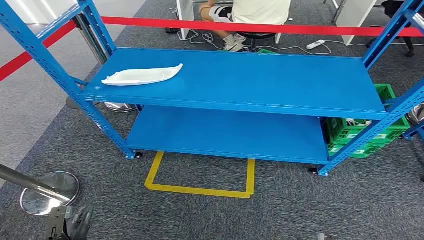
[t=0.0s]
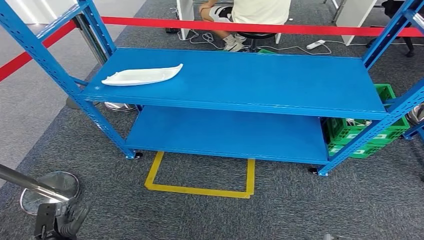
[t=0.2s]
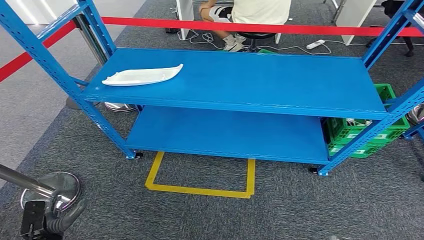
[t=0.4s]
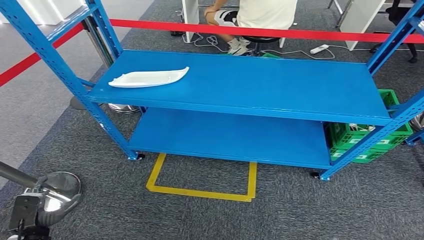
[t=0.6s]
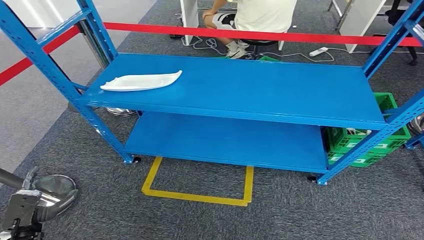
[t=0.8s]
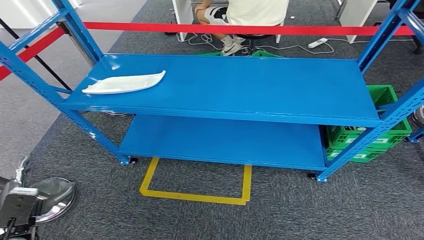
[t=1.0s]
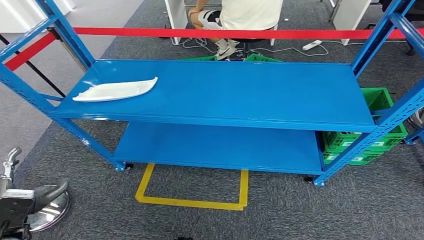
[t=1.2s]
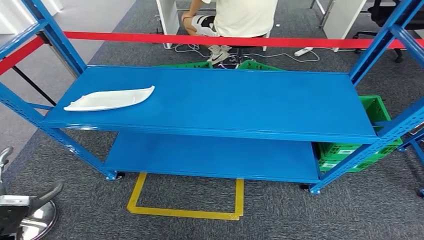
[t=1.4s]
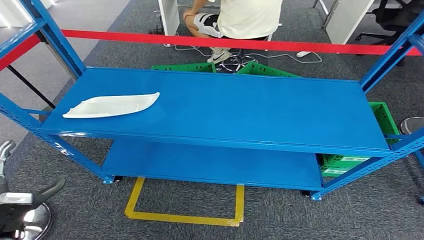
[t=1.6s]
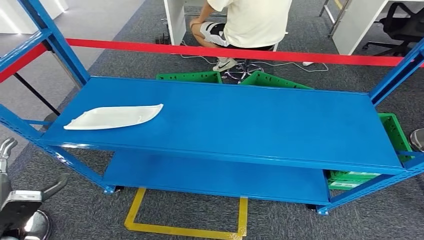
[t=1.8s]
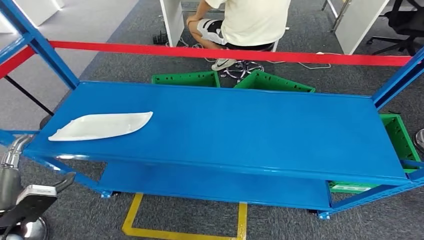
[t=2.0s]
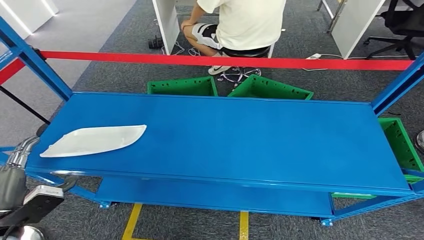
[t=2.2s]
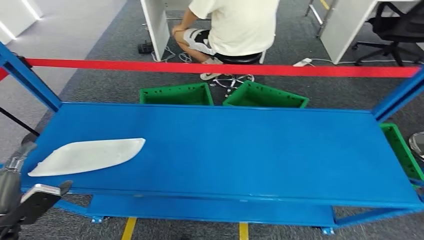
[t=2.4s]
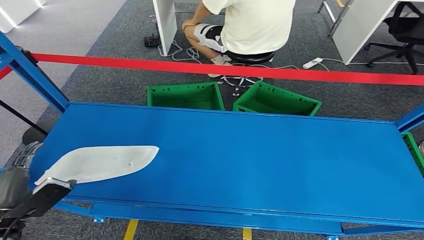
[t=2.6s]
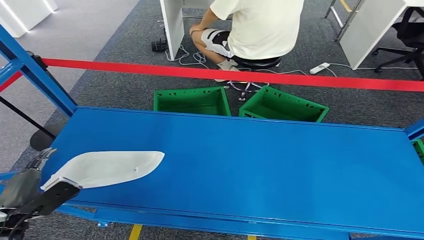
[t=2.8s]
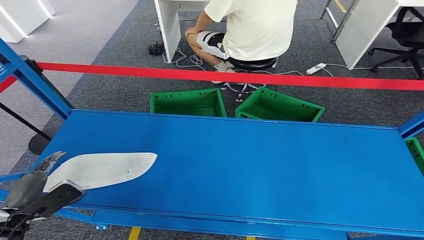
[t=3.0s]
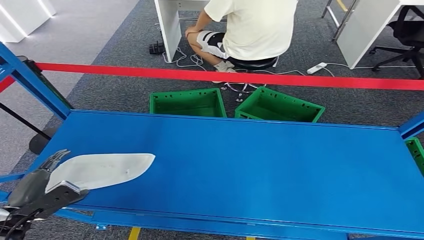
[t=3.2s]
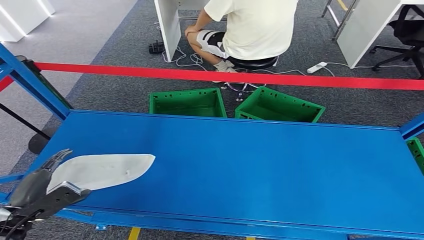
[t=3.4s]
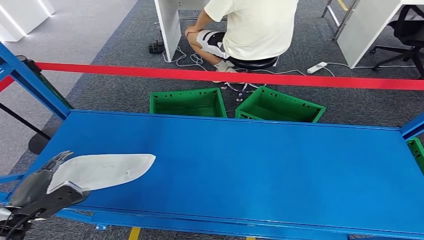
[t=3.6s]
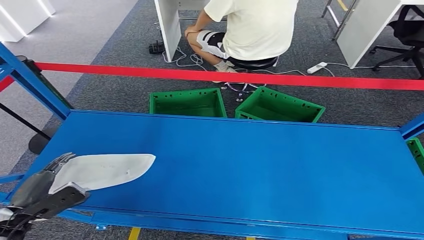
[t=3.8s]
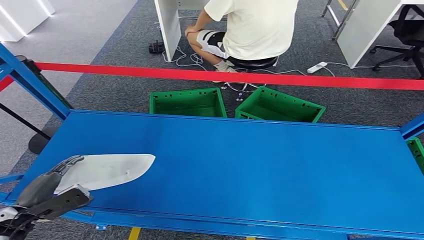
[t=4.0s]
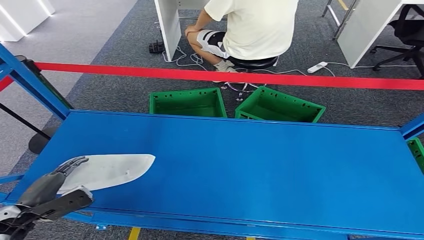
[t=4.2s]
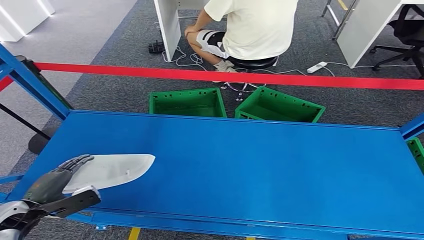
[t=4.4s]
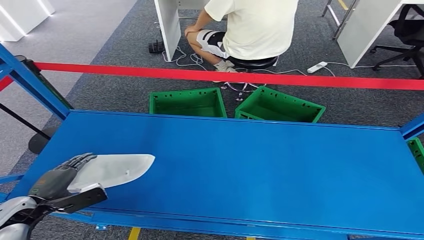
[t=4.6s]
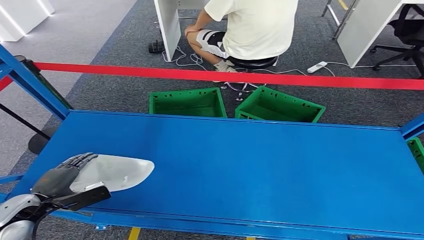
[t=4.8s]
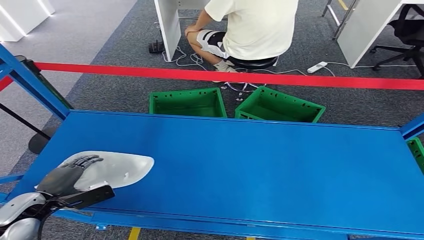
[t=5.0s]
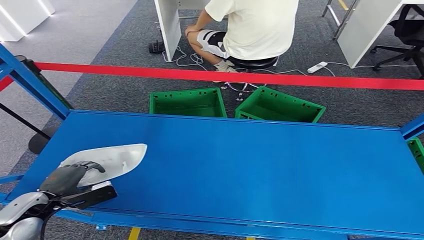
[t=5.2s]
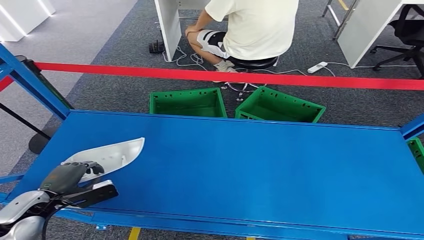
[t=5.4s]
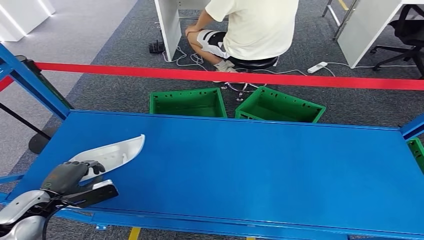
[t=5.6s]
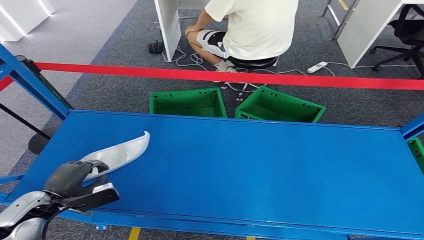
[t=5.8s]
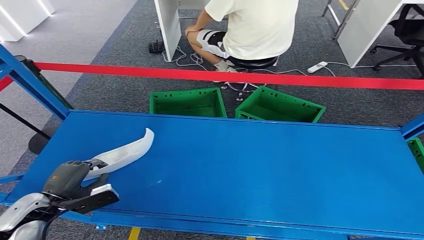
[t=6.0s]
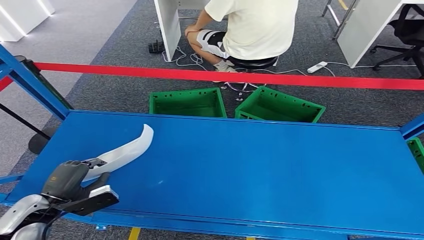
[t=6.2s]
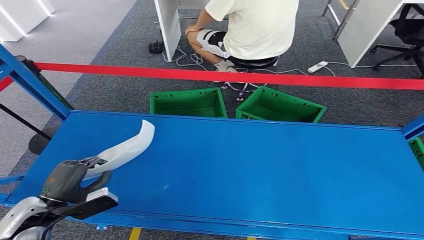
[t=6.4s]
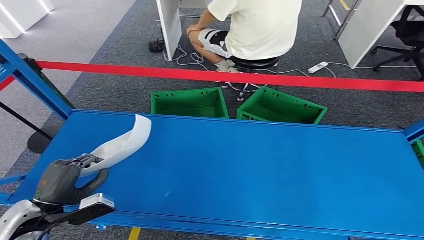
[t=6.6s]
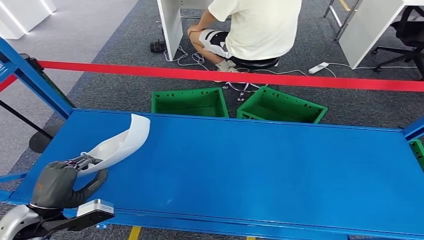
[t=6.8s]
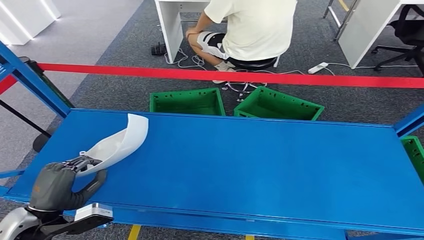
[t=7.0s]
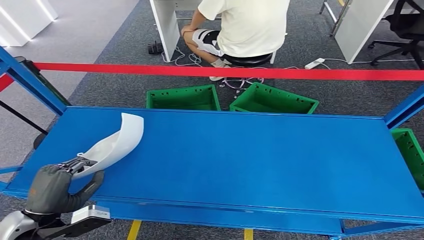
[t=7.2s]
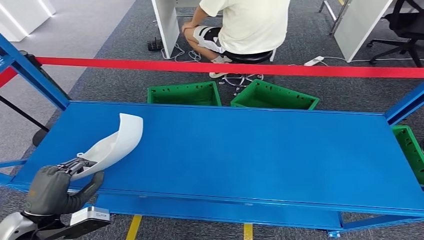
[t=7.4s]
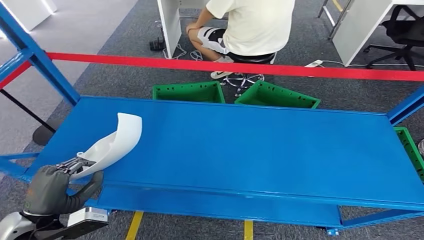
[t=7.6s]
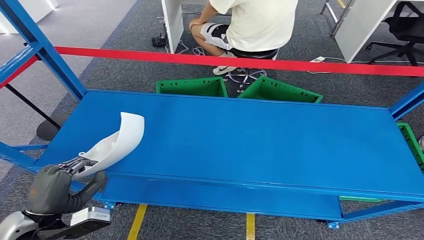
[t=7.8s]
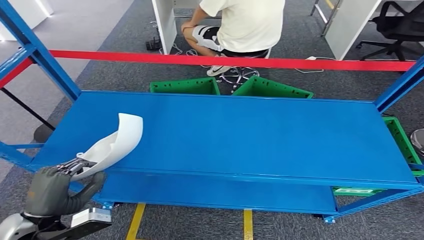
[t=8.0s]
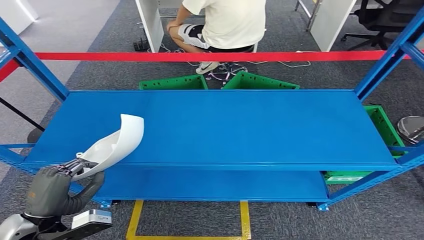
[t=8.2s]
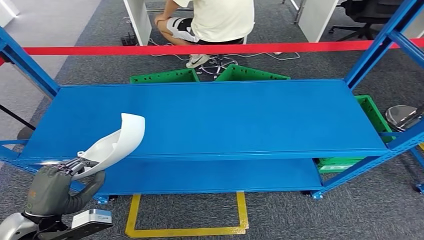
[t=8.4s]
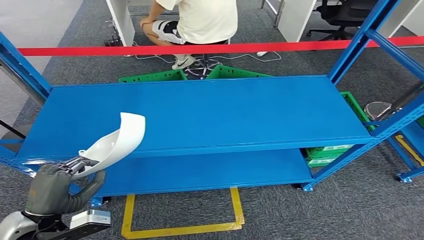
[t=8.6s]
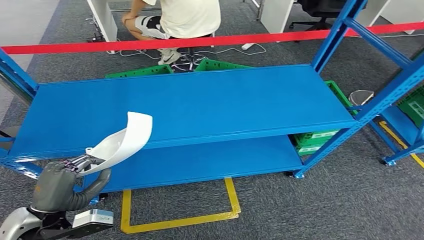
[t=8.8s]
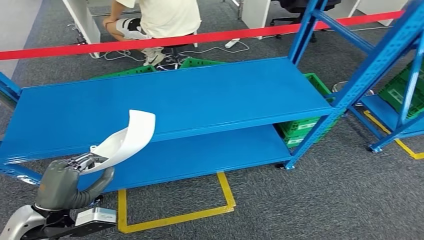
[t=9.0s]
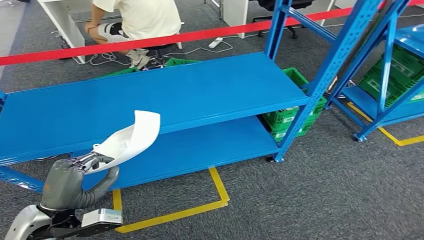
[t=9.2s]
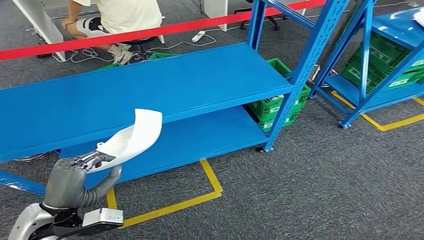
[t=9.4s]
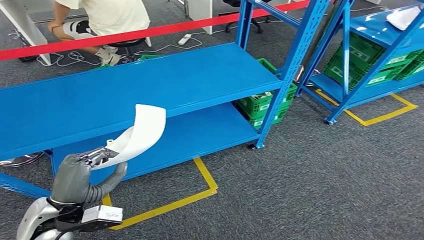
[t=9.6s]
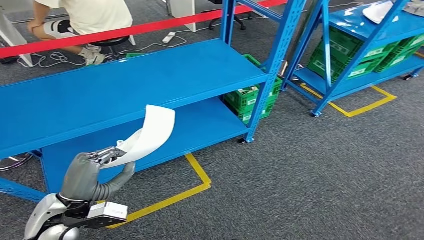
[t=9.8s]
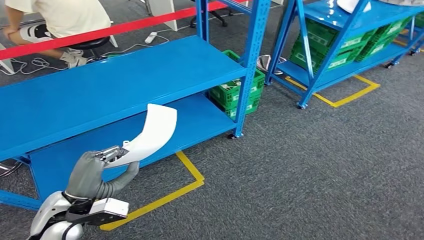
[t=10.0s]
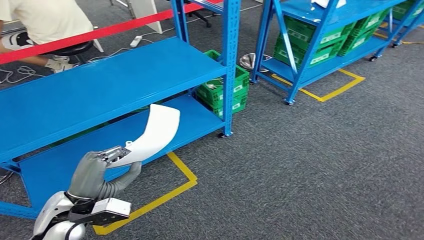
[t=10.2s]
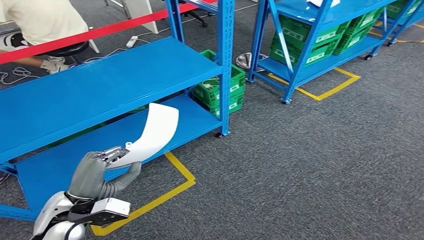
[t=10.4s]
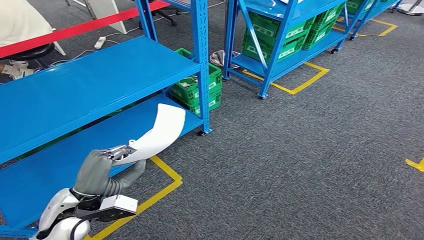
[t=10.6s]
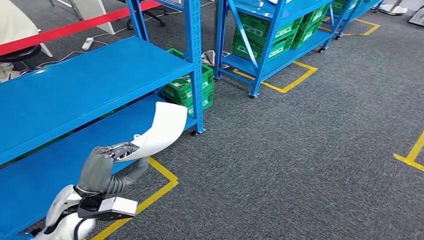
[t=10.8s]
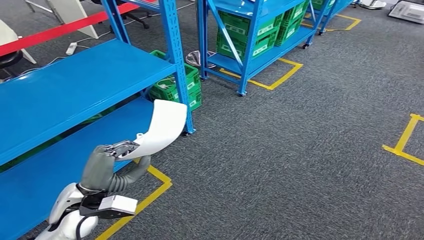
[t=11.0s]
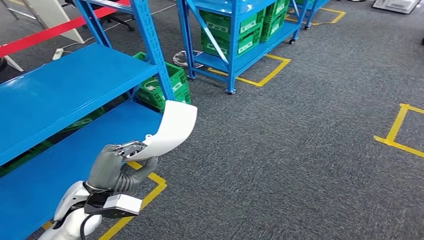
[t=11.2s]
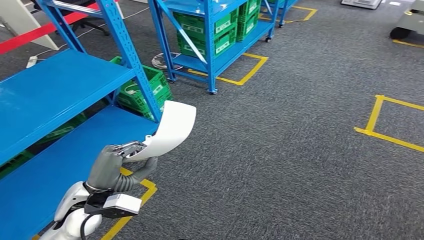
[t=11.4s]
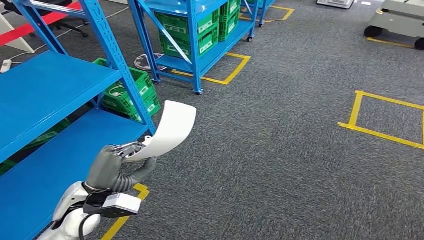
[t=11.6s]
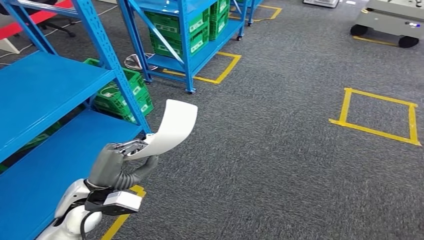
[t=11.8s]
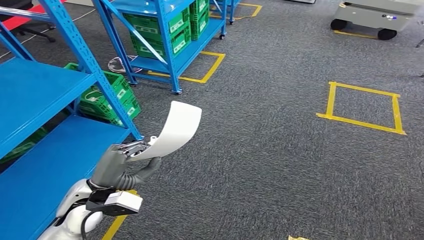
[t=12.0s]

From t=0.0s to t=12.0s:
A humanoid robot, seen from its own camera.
Step, from t=0.0s to t=7.4s: Pick up the small component from the shelf.
From t=3.0s to t=4.4s: There are only small adjustments of the hands.
From t=4.4s to t=6.0s: There are only small adjustments of the hands.

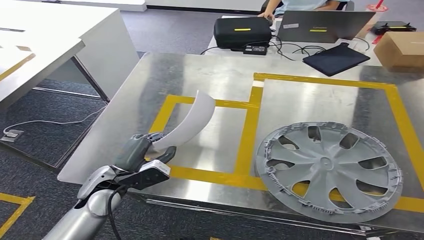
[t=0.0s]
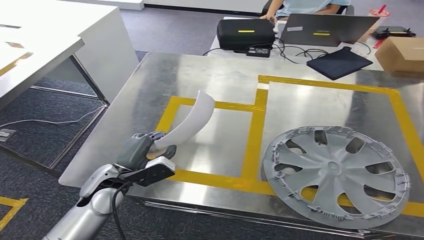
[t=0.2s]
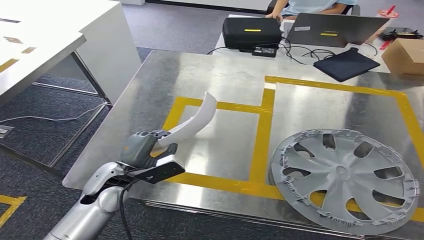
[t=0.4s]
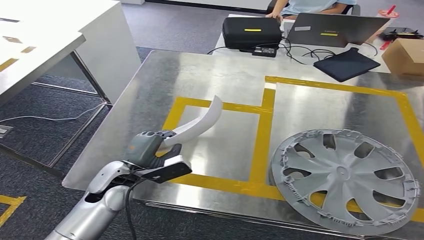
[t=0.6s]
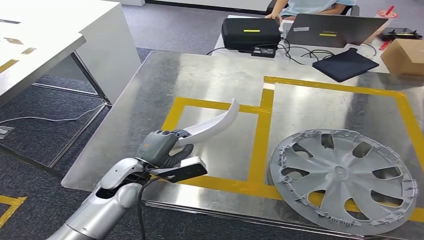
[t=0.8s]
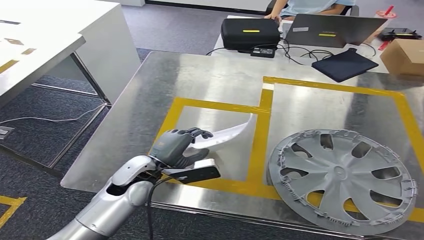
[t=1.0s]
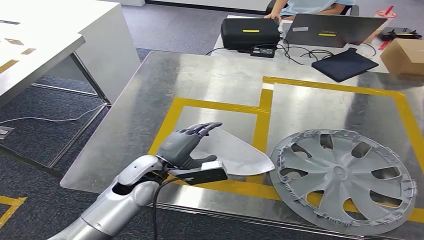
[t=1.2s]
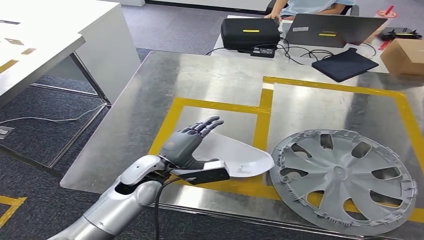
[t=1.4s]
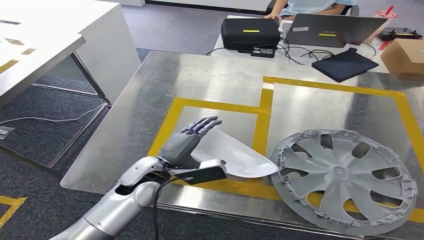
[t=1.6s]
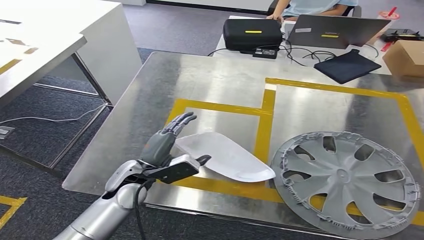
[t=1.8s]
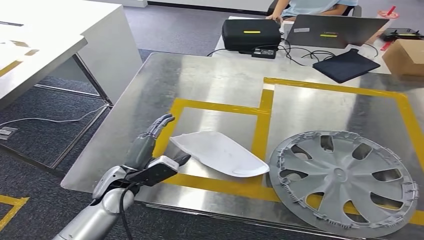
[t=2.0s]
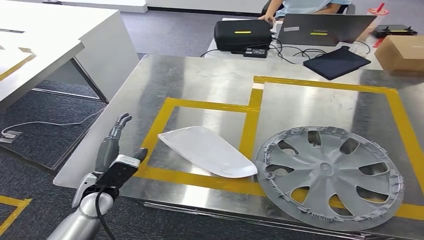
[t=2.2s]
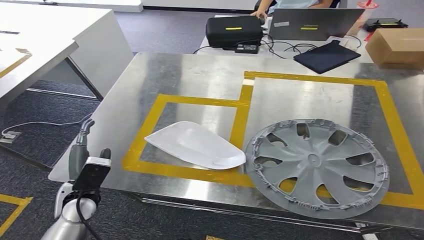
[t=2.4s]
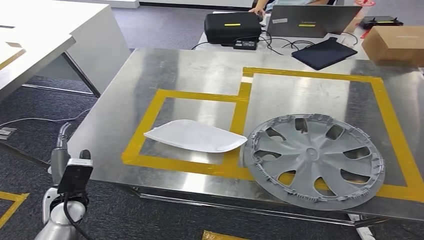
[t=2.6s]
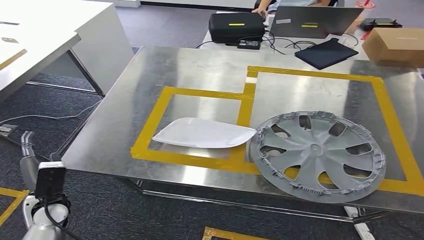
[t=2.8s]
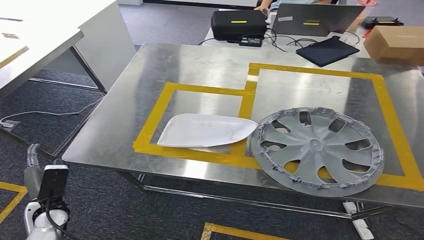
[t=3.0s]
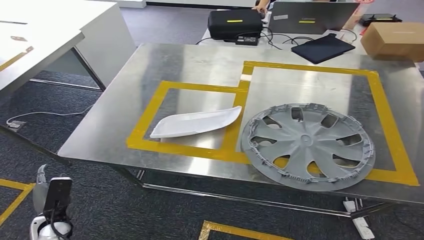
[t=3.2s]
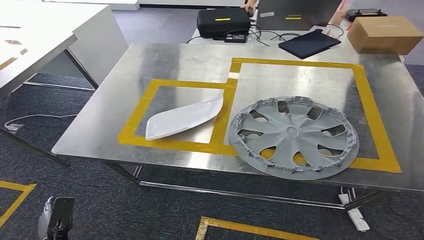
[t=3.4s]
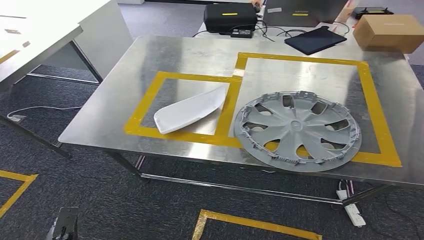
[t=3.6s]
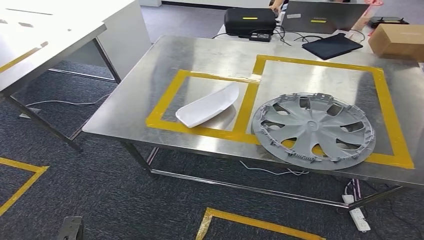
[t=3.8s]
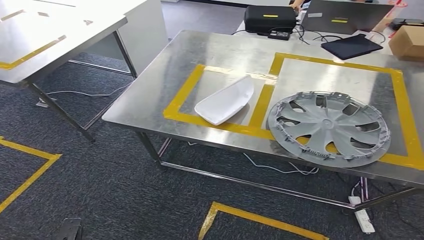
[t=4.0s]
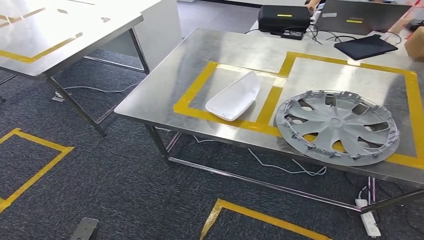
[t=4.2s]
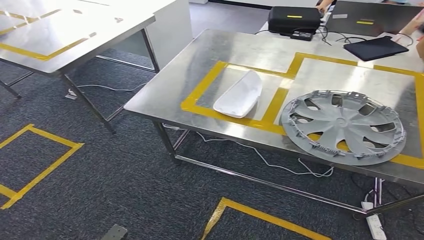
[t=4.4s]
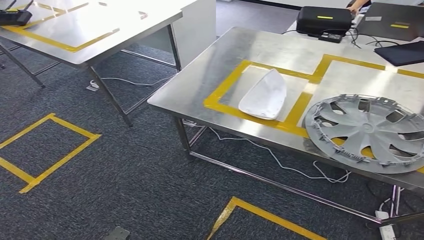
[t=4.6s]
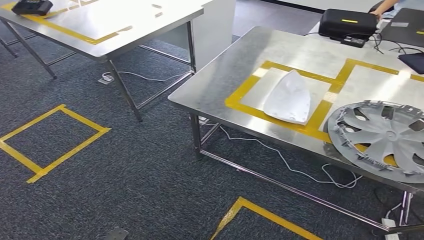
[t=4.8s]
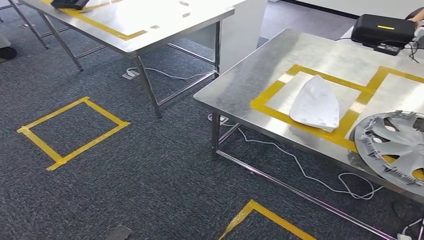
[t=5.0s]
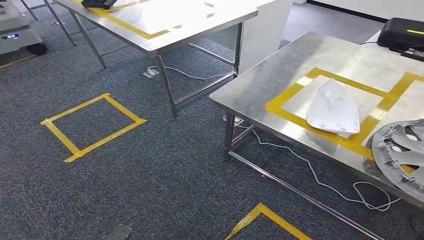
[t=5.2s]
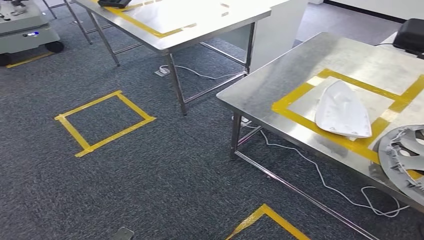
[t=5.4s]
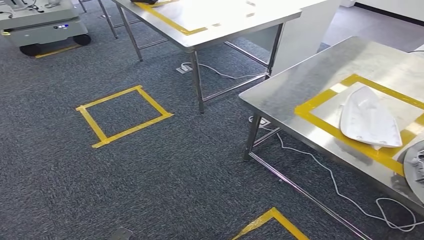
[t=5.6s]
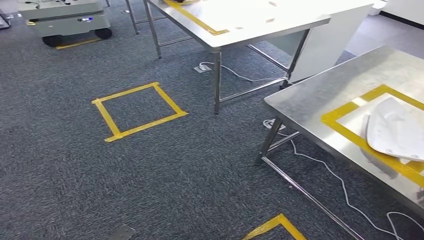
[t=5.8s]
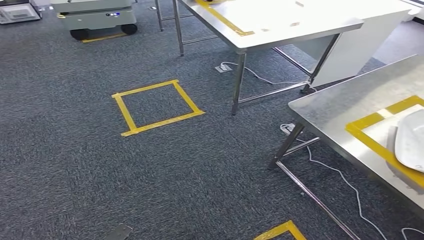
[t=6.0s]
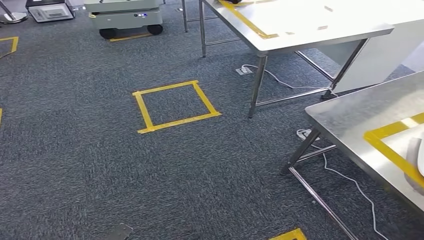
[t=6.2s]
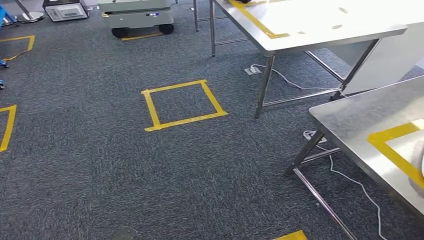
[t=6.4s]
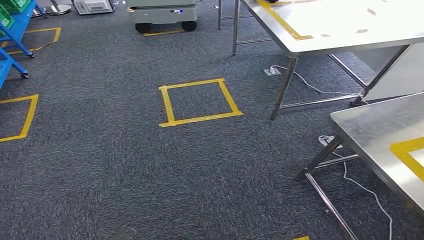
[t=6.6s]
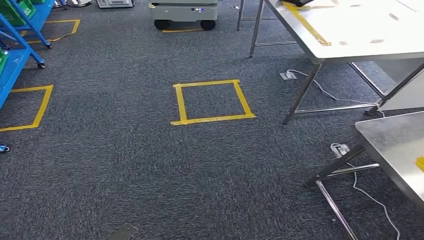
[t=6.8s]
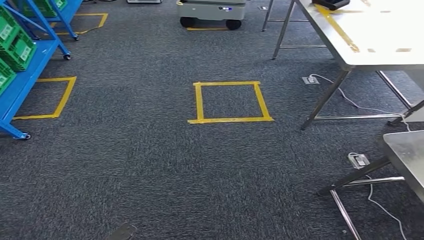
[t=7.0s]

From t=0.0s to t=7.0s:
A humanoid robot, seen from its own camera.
Step, from t=0.8s to t=3.2s: Insert the small component into the corresponding slot on the workbench.
